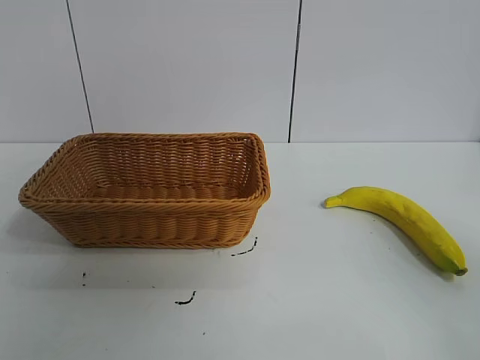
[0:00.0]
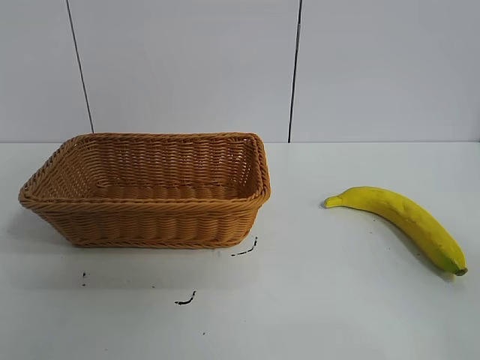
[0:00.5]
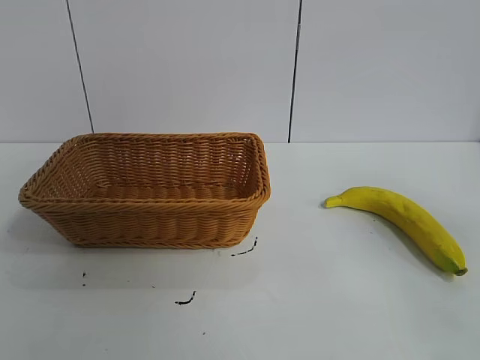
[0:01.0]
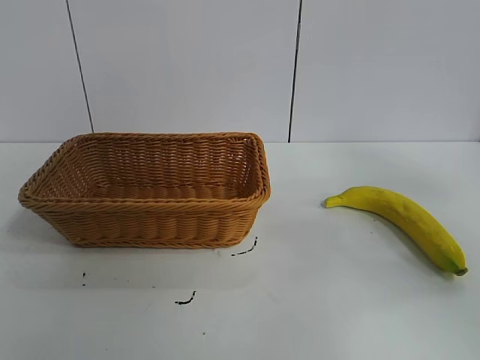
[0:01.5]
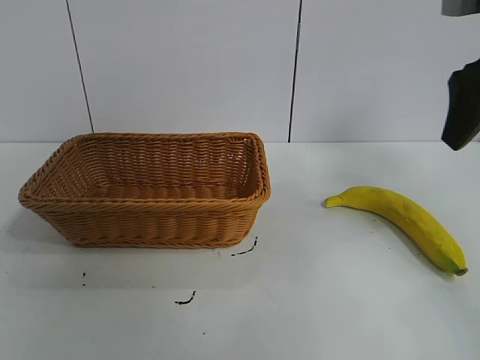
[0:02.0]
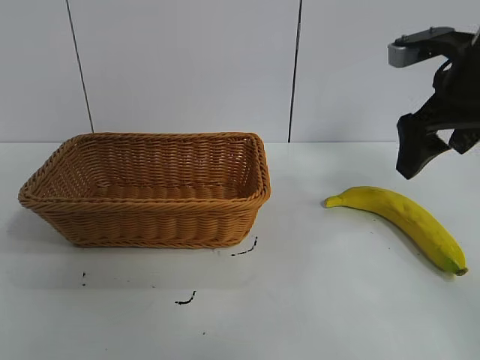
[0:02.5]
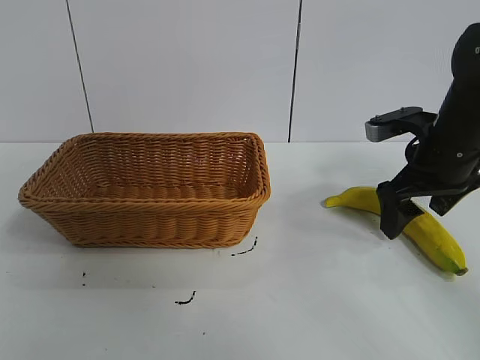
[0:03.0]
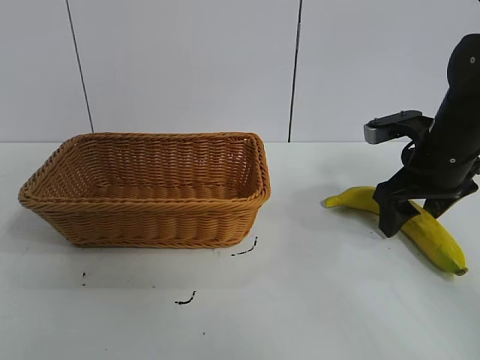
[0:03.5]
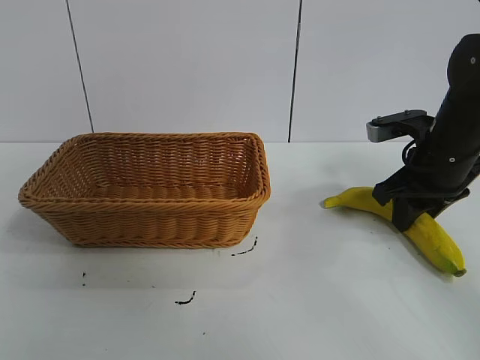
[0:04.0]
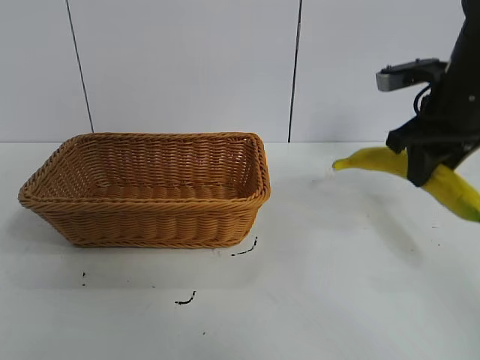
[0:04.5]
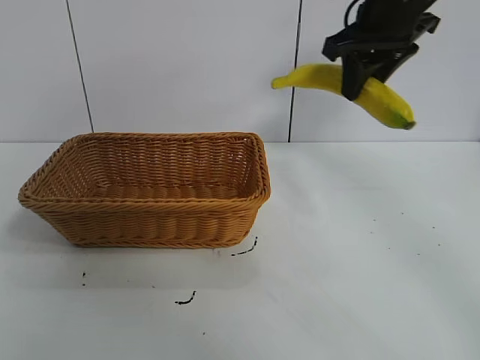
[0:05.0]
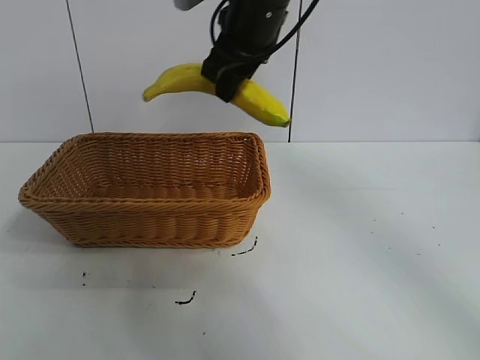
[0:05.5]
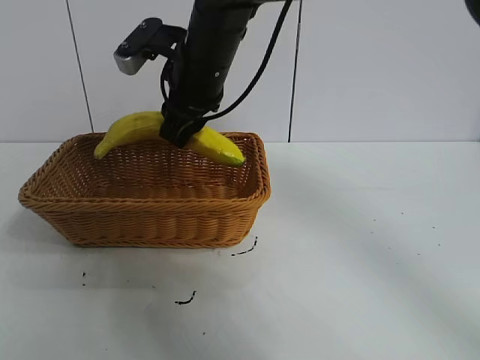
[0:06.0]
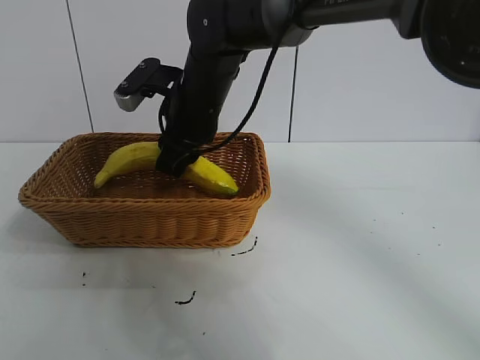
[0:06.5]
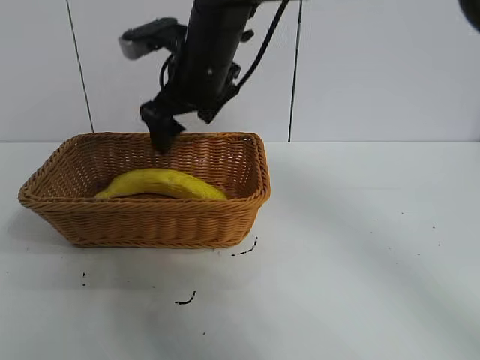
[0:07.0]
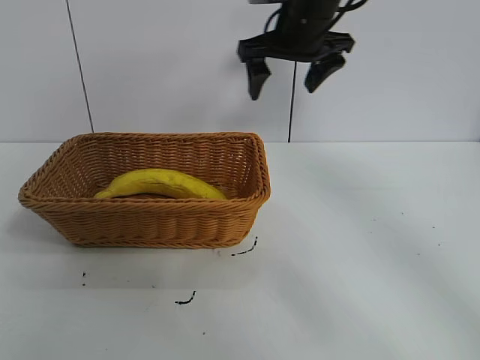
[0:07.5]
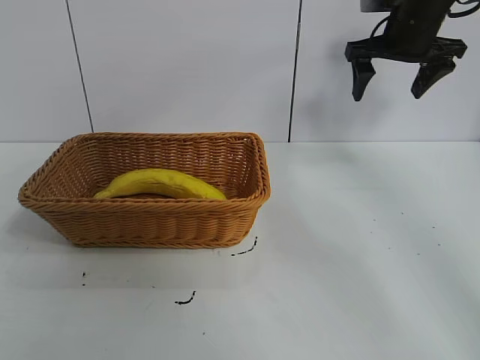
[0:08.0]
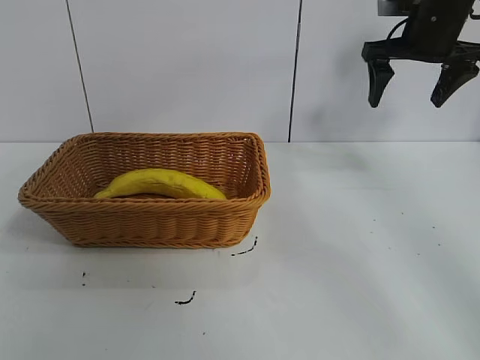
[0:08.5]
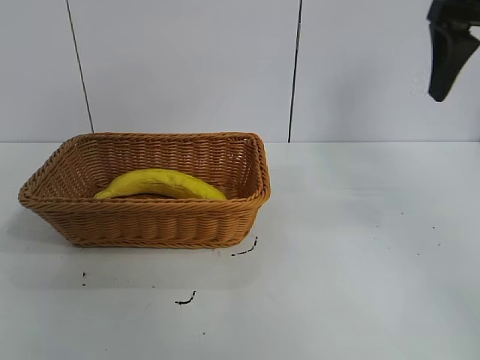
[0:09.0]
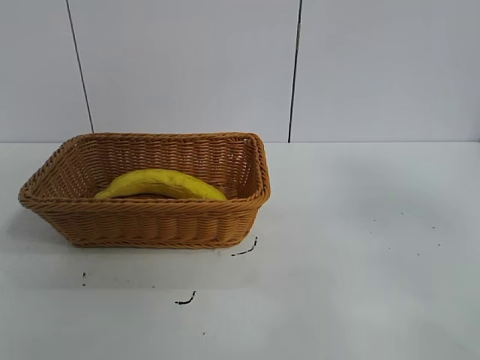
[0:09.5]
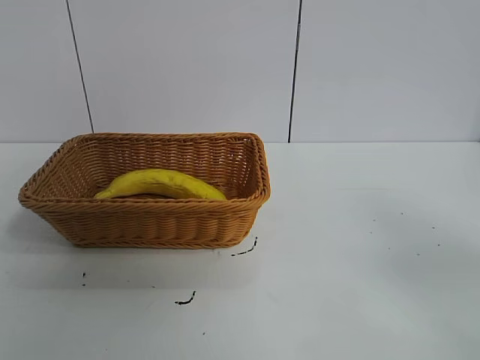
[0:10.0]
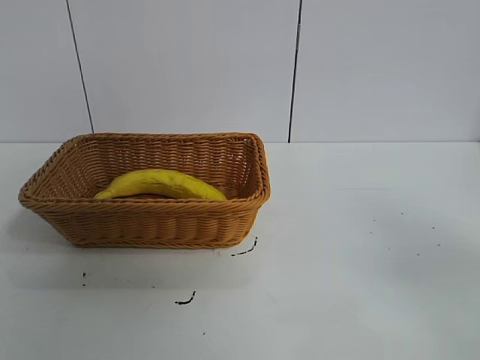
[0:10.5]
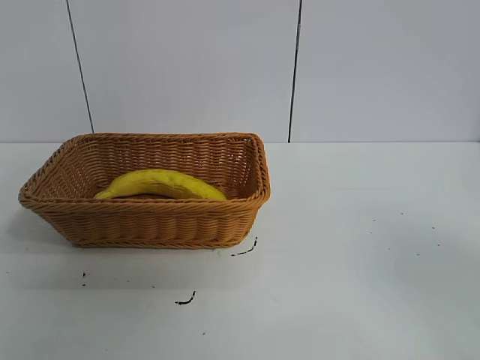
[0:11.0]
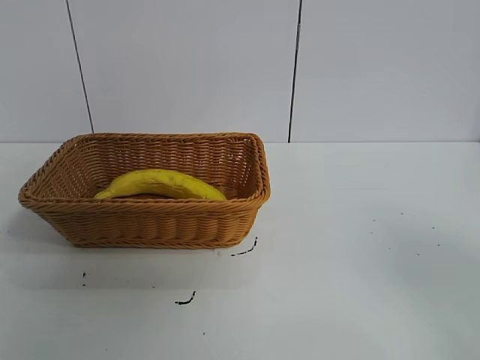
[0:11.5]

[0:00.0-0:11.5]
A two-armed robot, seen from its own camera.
Task of the whole recording: pick up the banana and put it into the basket.
Step, 0:01.0 to 0:03.5: Grasp the banana with right gripper.
Step, 0:04.5 to 0:06.5: Place the banana in the basket with right gripper.
